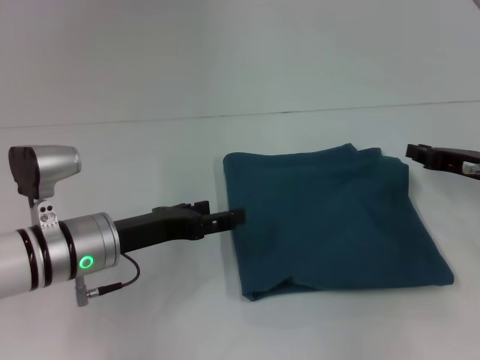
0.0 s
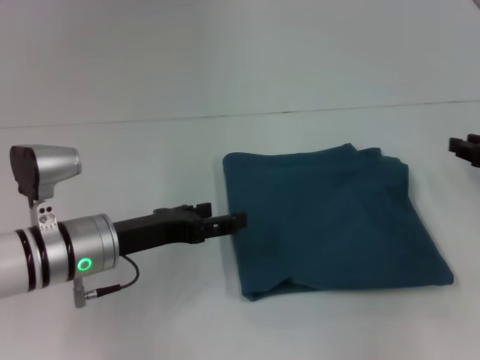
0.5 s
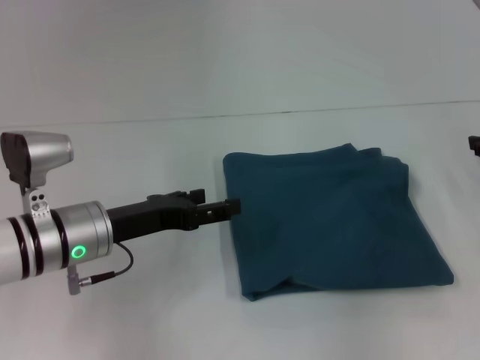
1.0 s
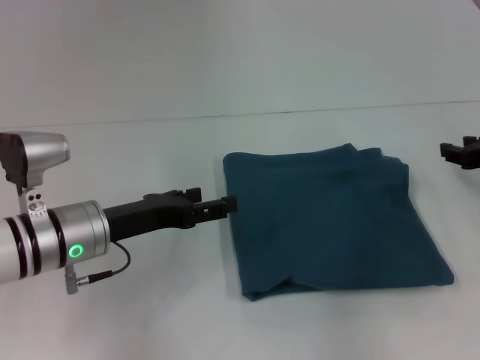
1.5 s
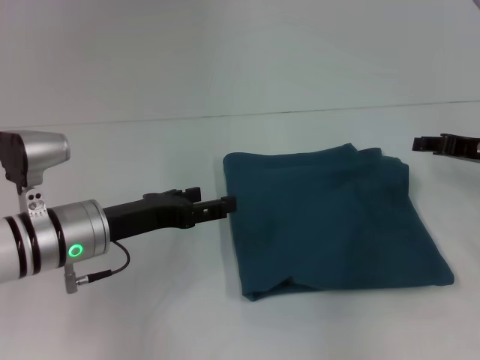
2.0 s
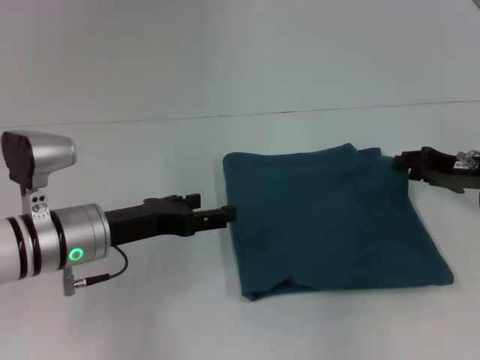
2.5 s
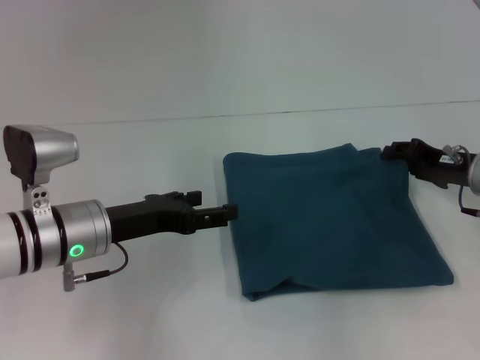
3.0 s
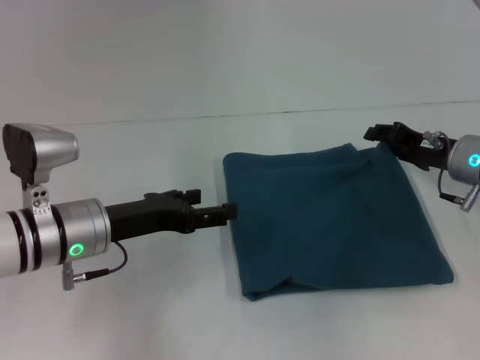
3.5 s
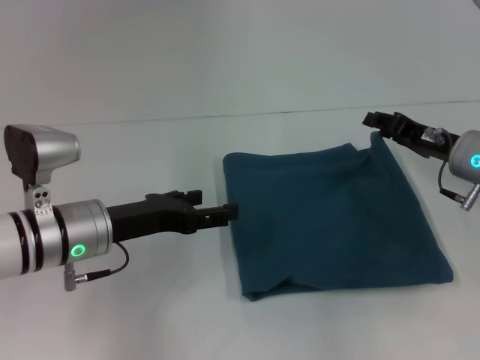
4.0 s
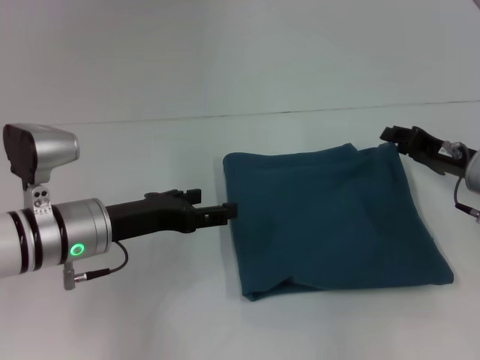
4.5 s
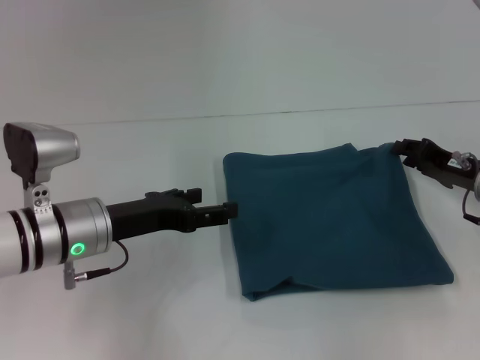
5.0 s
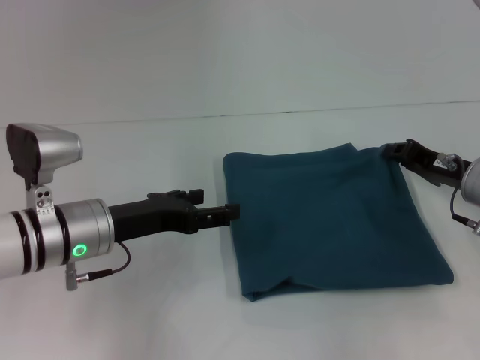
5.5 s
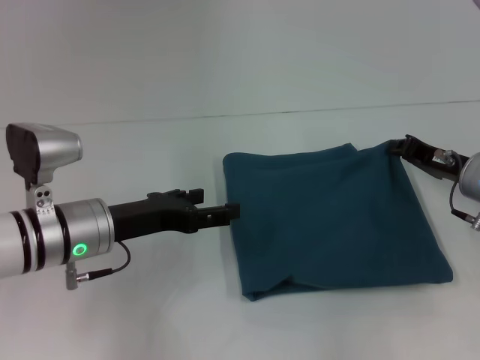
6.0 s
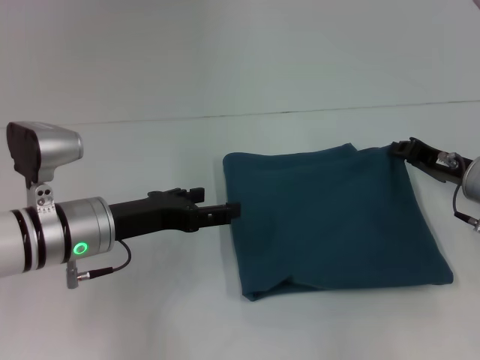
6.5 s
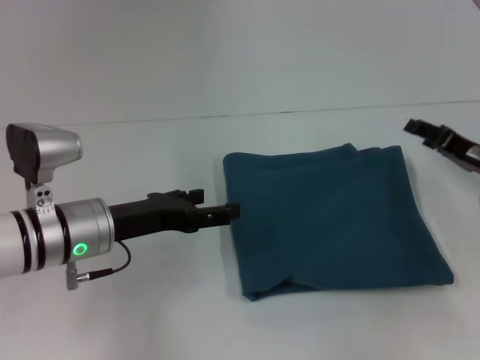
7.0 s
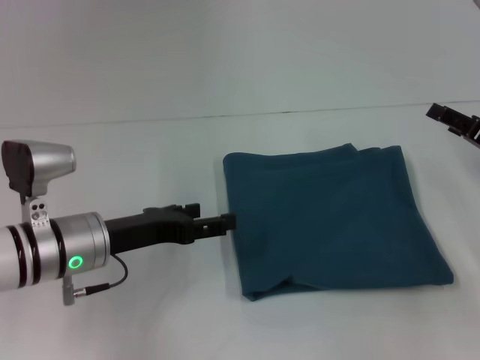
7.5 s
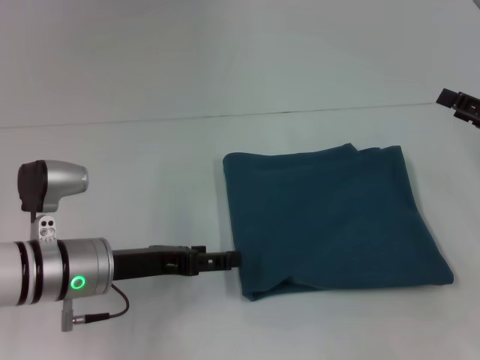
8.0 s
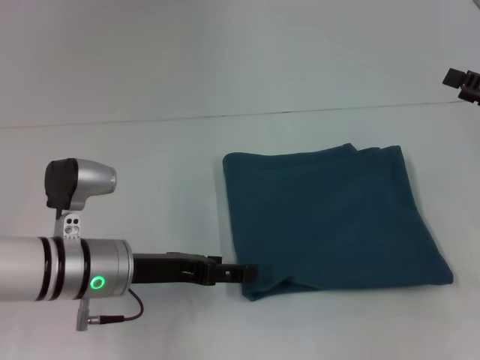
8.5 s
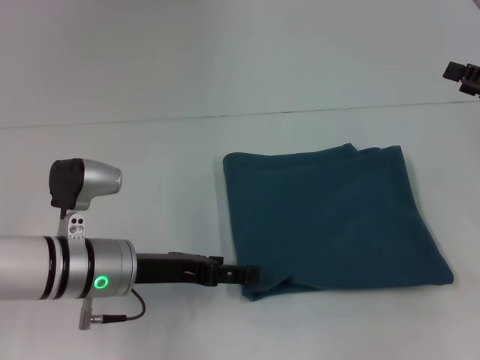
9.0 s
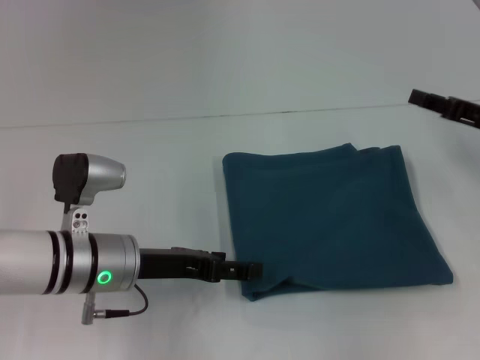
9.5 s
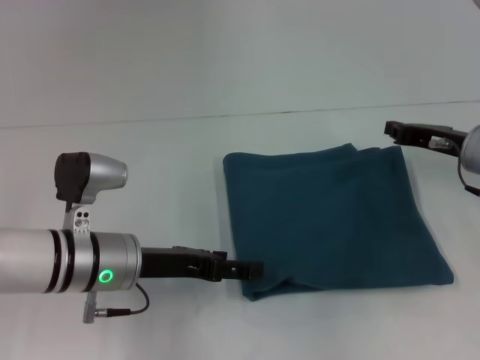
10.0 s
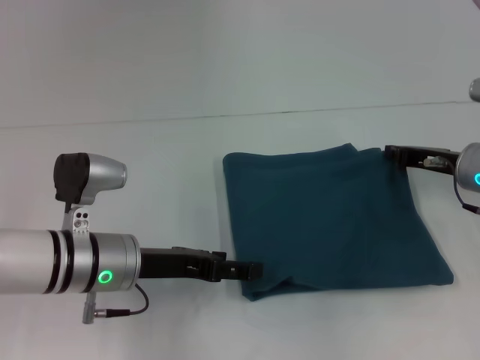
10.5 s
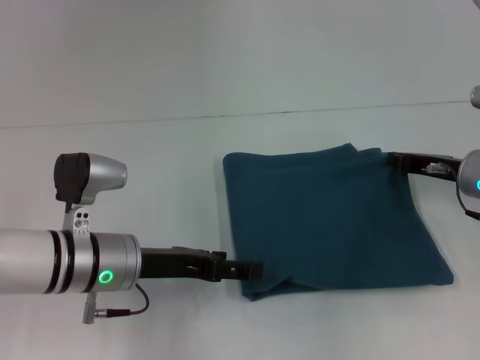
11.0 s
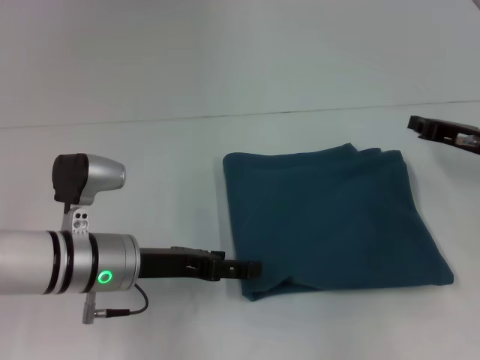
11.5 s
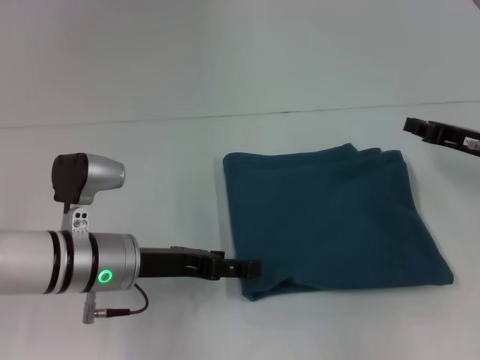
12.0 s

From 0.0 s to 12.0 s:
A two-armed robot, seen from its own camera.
From 0.0 s to 2.0 s: The right gripper opens.
From 2.0 s to 4.0 s: The right gripper moves approximately 5 cm.
From 4.0 s to 6.0 s: The right gripper closes its fingers.
From 6.0 s to 8.0 s: The right gripper shifts about 10 cm to the right and upward, and opens its fingers.
From 8.0 s to 10.0 s: The right gripper is displaced to the left and forward by roughly 10 cm, and closes up.
From 10.0 s to 12.0 s: The grippers make only small movements.

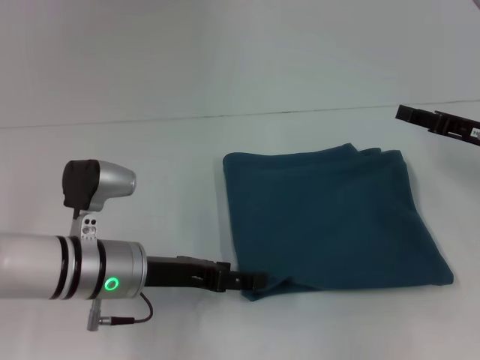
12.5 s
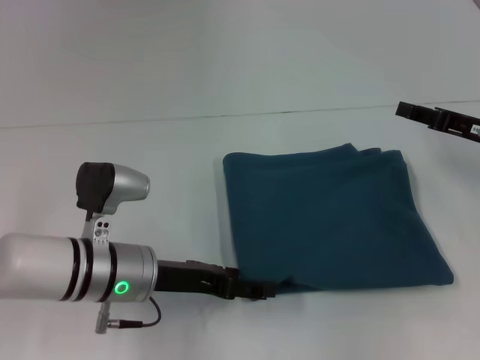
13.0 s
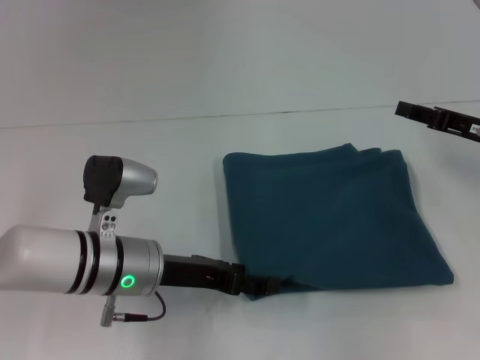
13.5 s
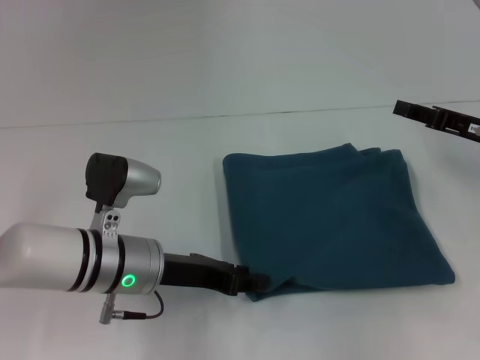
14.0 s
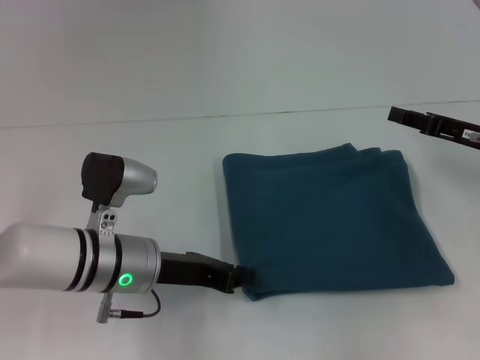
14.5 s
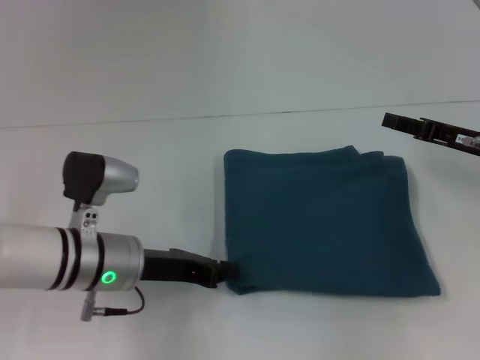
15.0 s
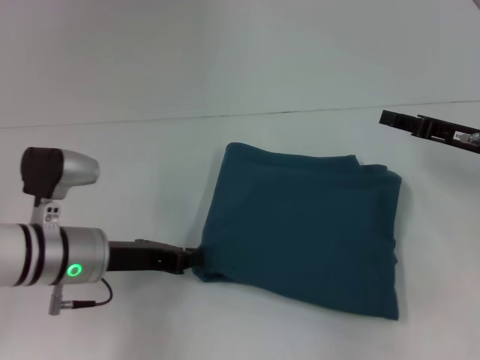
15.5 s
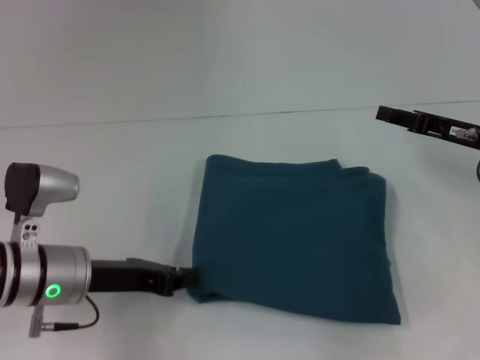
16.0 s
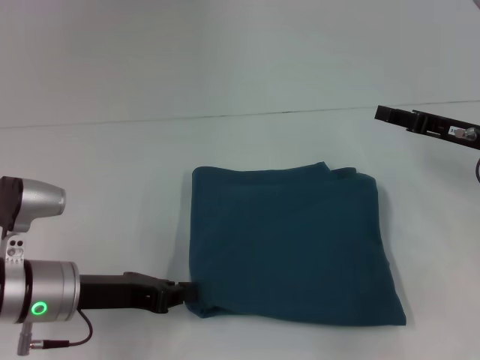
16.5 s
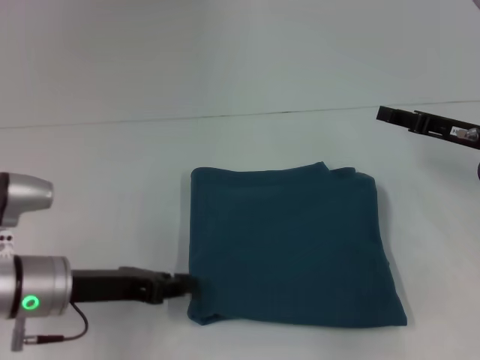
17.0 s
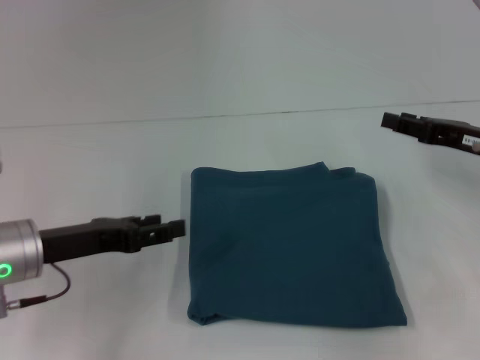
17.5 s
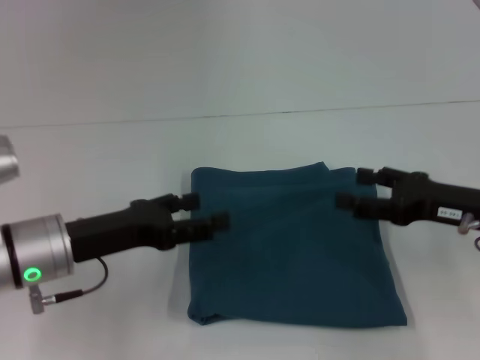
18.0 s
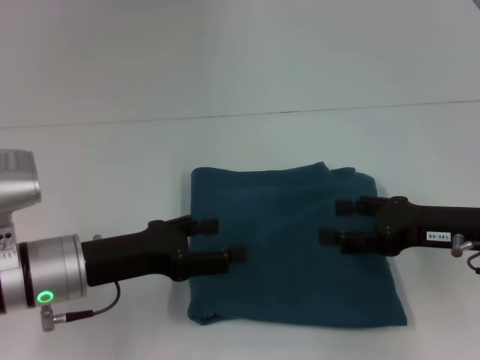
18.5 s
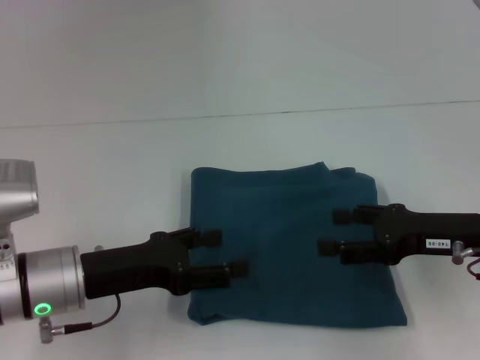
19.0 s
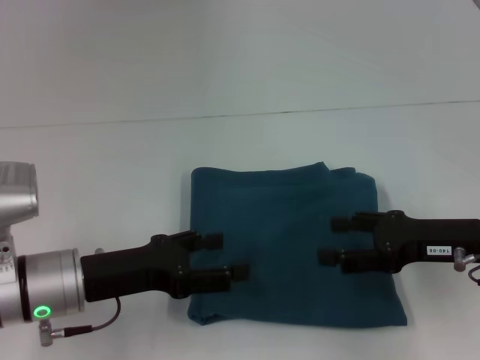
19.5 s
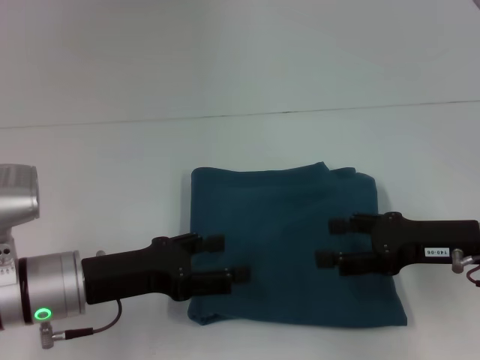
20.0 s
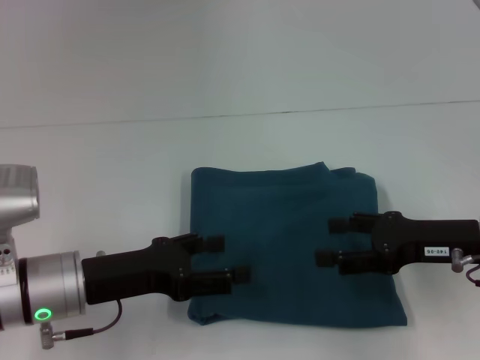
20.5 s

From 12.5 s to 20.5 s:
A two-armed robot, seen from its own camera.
From 12.5 s to 14.5 s: The left gripper closes its fingers.
From 14.5 s to 16.5 s: The left gripper travels to the left by about 5 cm.
From 16.5 s to 18.5 s: The left gripper opens, while the right gripper is displaced backward by roughly 5 cm, and opens.
From 18.5 s to 20.5 s: Both grippers stay put.

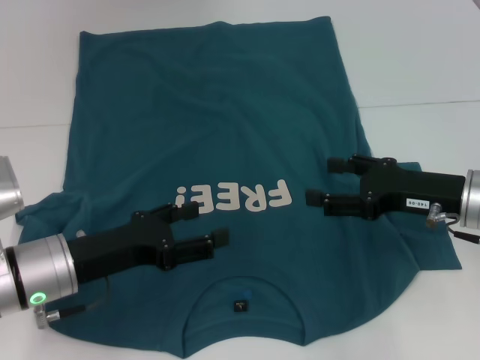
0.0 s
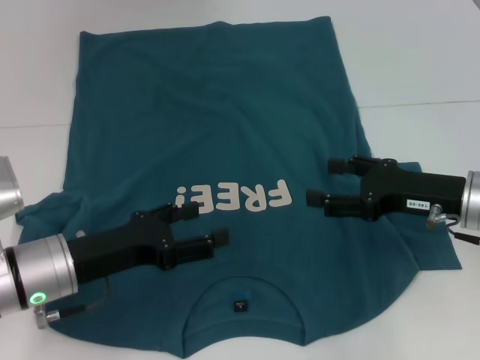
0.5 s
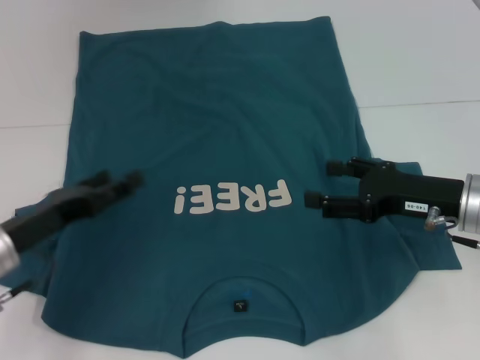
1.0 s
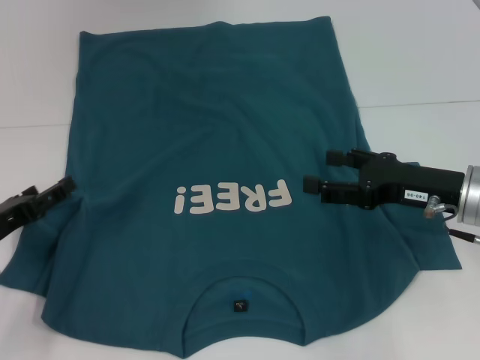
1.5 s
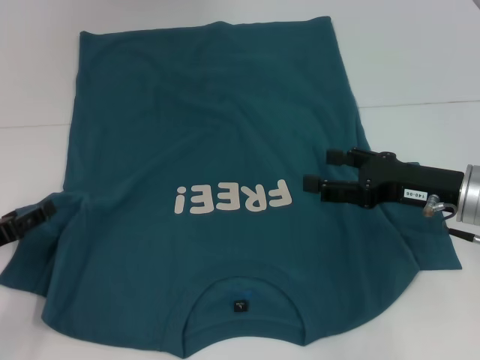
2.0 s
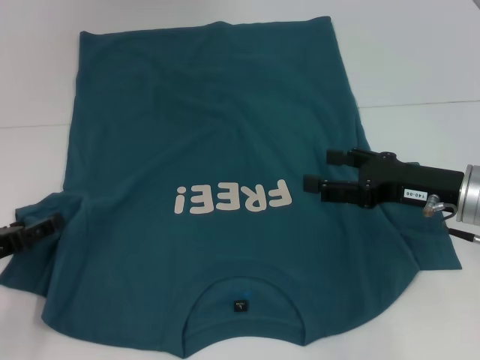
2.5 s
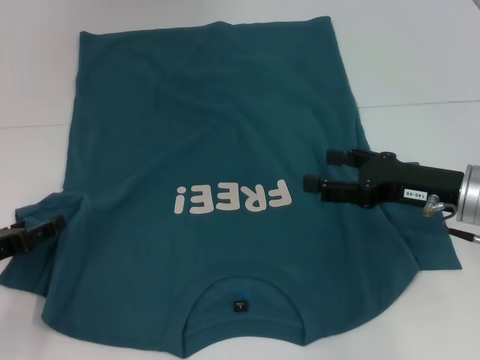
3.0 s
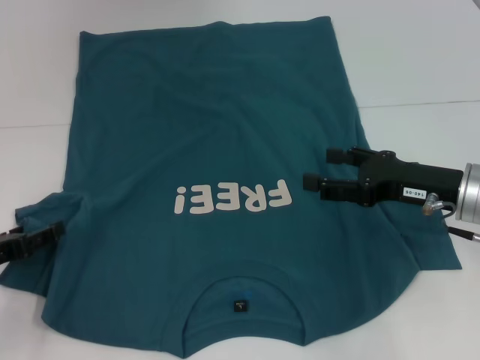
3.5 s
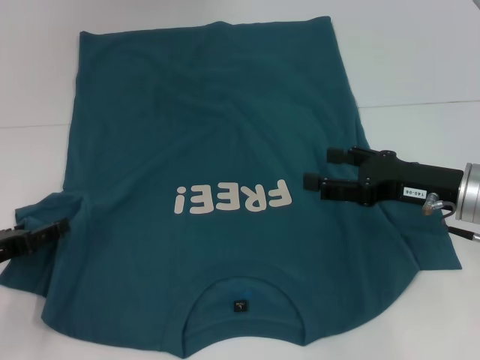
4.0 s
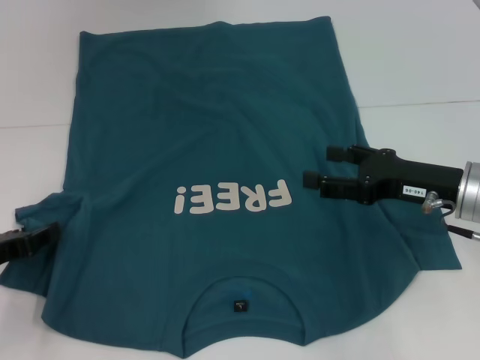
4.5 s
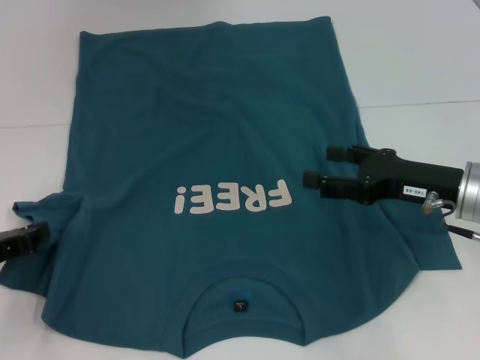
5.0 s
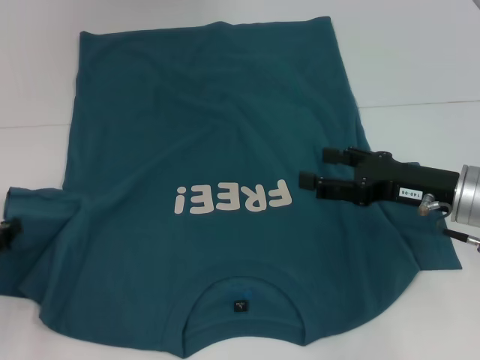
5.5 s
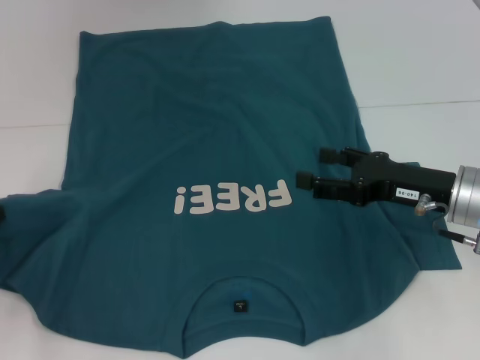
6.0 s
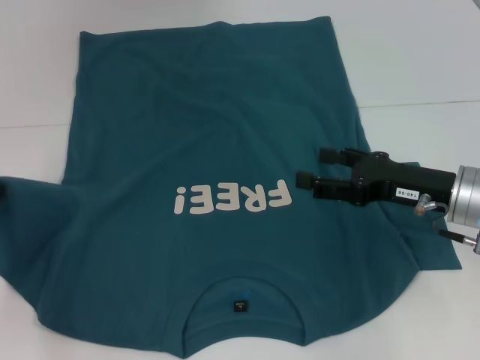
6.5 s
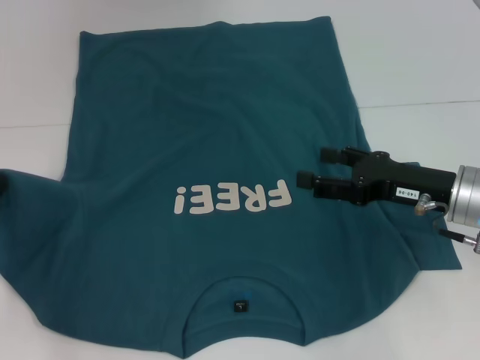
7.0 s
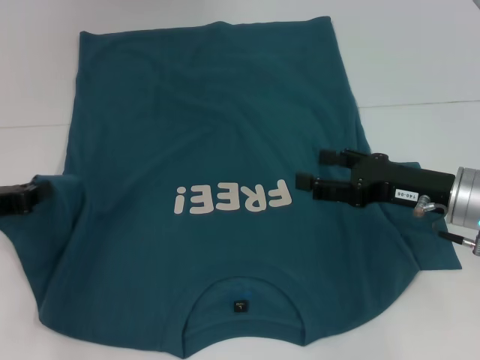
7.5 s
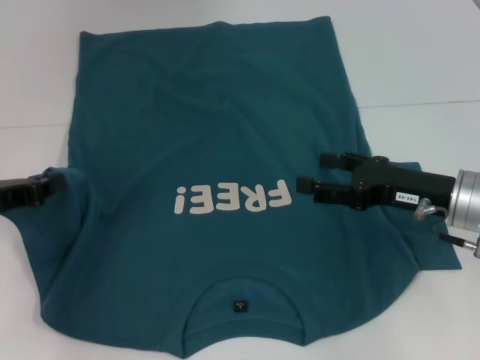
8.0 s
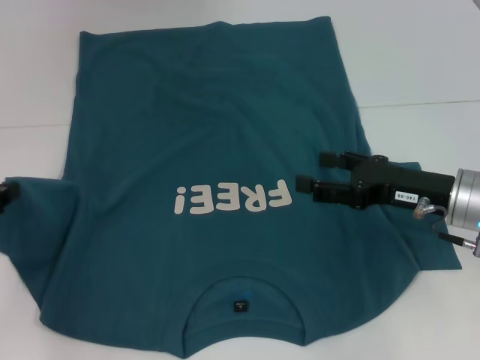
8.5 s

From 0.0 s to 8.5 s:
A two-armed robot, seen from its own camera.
From 0.0 s to 2.0 s: The left gripper goes roughly 10 cm to the left.
From 2.0 s to 4.0 s: The grippers make only small movements.
From 4.0 s to 6.5 s: The left gripper moves some 5 cm, and closes its fingers.
From 6.5 s to 8.5 s: The grippers make only small movements.
